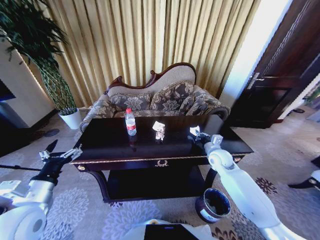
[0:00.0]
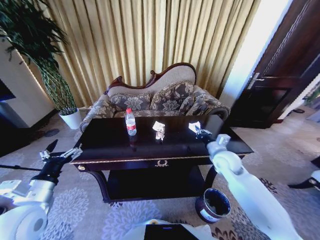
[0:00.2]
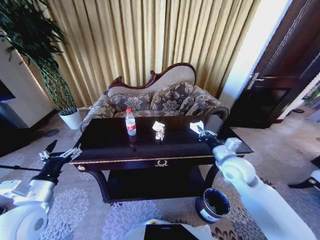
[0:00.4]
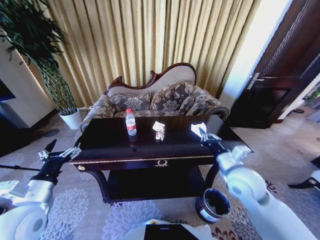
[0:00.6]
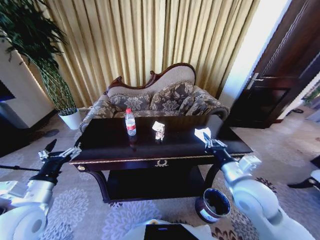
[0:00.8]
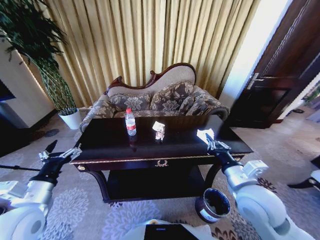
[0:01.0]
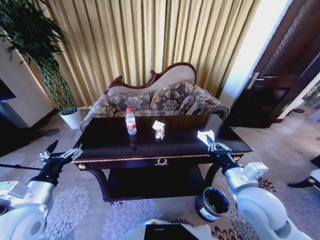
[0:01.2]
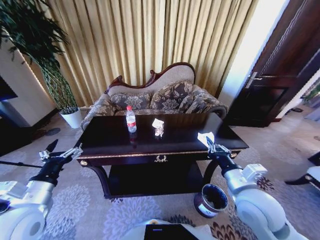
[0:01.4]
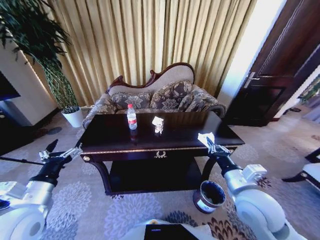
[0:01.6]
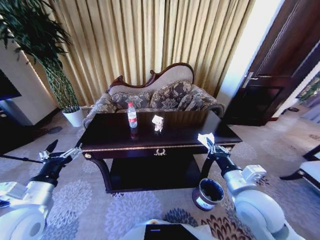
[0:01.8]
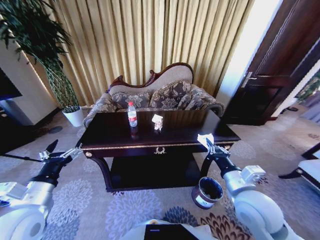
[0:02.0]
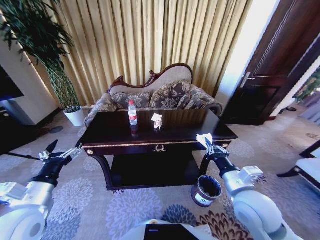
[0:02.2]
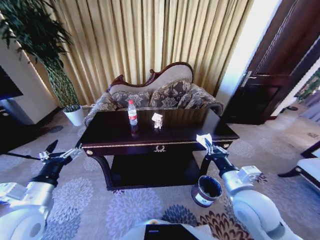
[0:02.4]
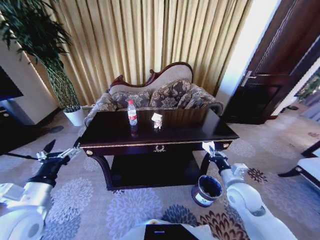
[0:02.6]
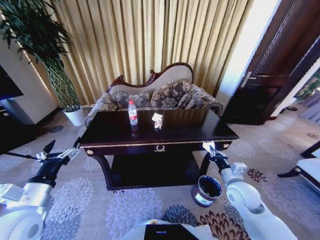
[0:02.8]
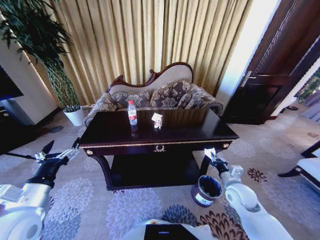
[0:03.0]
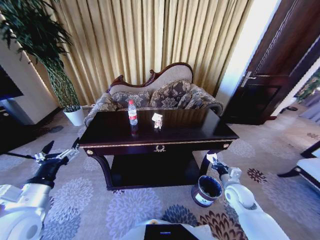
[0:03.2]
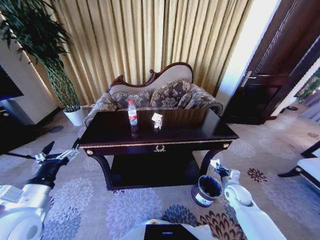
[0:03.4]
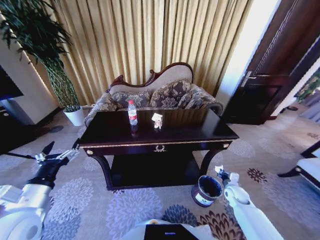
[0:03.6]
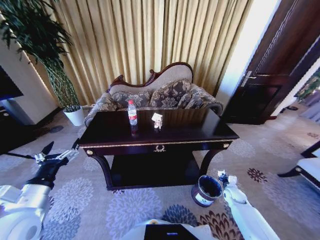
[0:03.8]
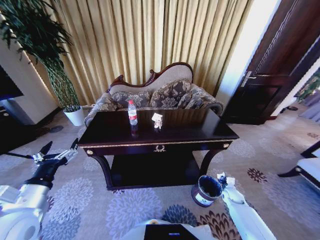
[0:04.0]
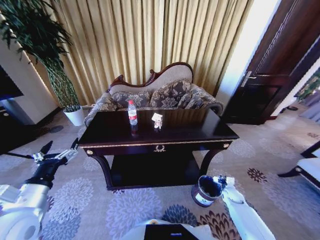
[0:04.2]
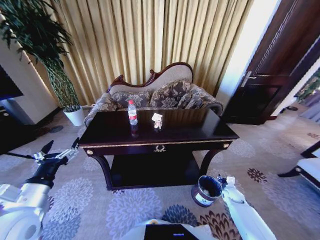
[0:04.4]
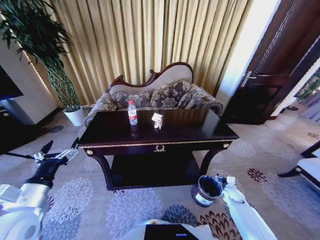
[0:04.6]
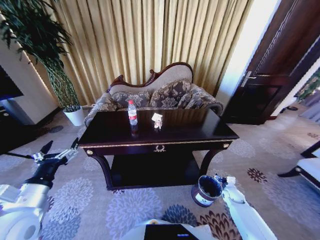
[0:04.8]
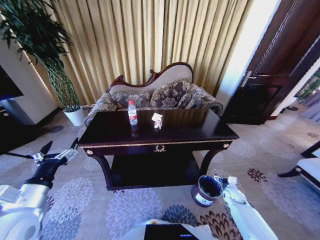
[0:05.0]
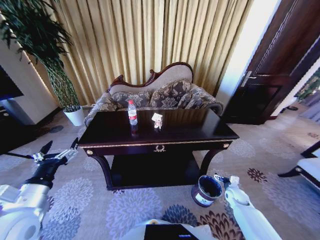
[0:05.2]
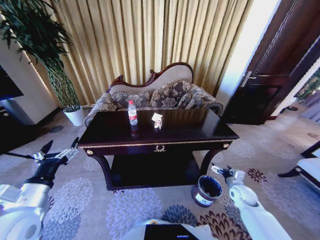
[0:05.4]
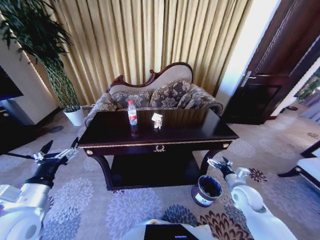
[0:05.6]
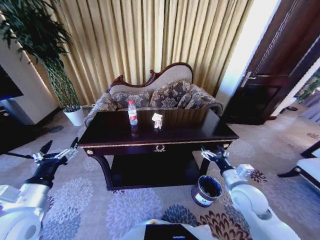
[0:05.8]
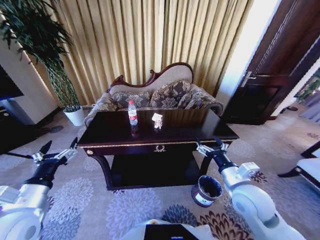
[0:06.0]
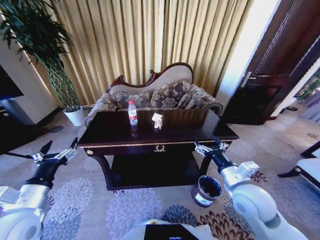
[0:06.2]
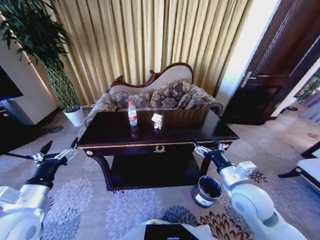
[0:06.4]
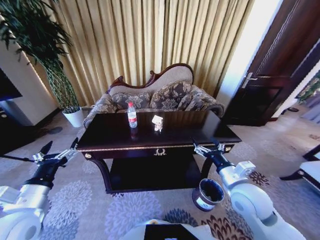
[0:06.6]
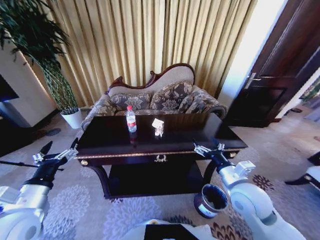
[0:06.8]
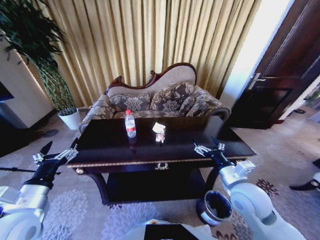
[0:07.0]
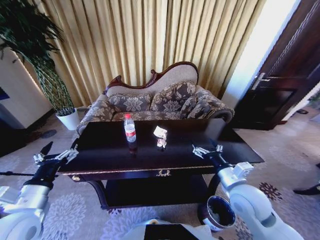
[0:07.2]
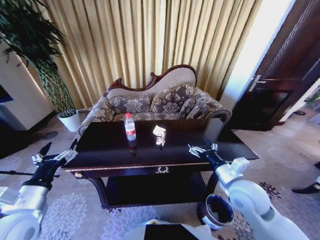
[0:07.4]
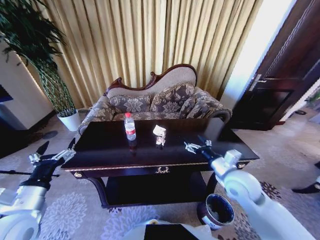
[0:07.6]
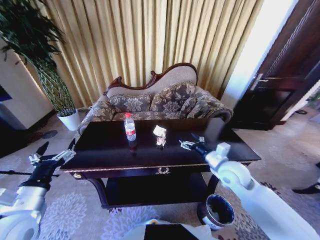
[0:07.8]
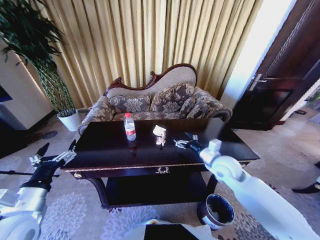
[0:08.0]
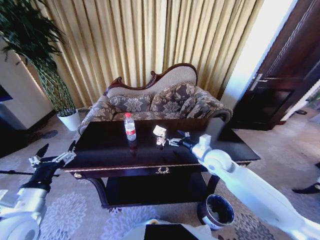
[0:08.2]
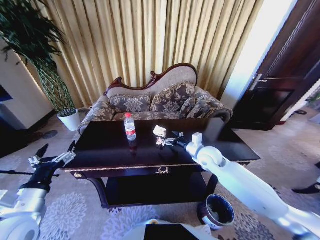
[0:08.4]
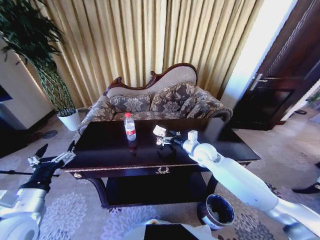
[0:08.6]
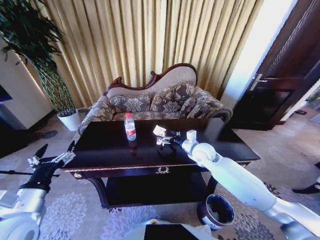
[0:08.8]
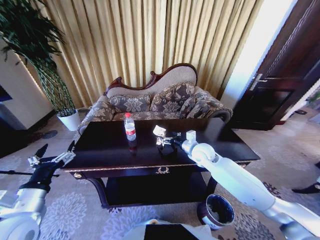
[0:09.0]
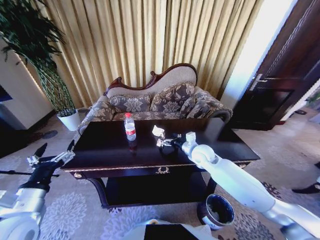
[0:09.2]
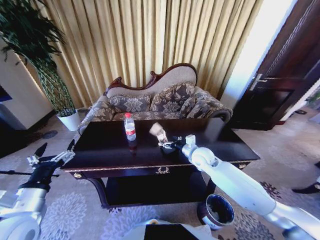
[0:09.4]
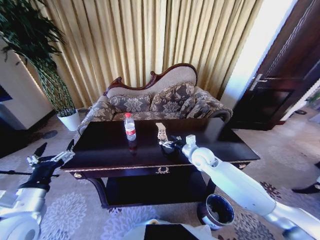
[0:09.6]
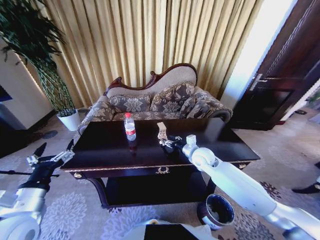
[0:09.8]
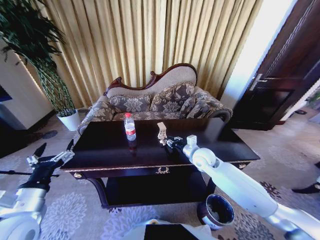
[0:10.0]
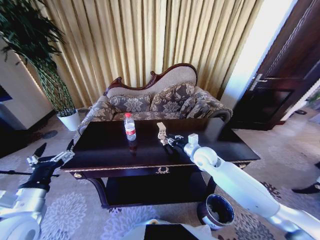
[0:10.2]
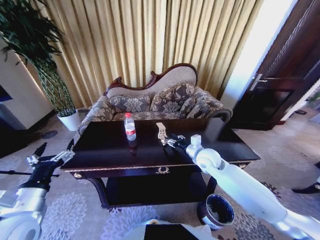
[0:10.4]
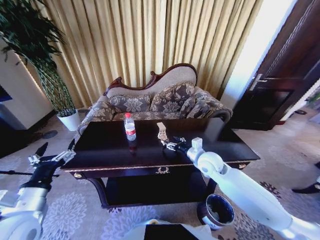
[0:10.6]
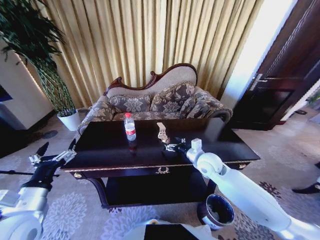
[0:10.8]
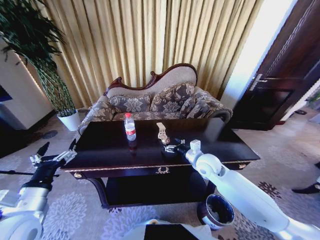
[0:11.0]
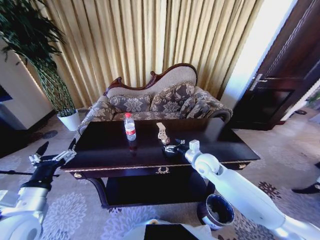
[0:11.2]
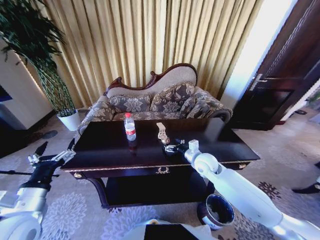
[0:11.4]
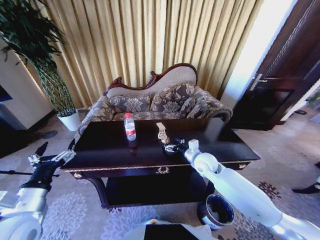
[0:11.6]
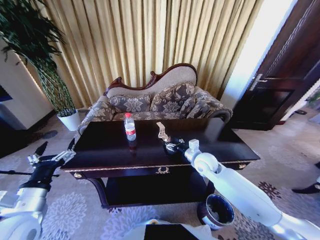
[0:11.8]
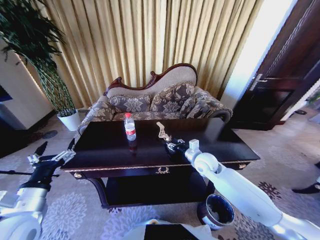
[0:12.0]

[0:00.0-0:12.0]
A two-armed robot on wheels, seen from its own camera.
Task of the whole recording: Move to the front of the table and place the trash on the table into the trash bin.
0:00.0 to 0:01.6: The right gripper is displaced backward and upward by roughly 25 cm.
0:01.6 to 0:03.0: The right gripper goes approximately 15 cm downward, to the right and forward.
0:03.0 to 0:04.4: The right gripper travels downward and to the right by roughly 20 cm, and opens.
0:04.4 to 0:06.0: The right gripper moves upward and to the left, approximately 35 cm, and opens its fingers.
0:07.6 to 0:09.0: The right gripper moves forward and to the left, about 15 cm.
0:09.0 to 0:10.4: The right gripper closes up.
0:10.4 to 0:12.0: The right gripper opens, then closes once more.

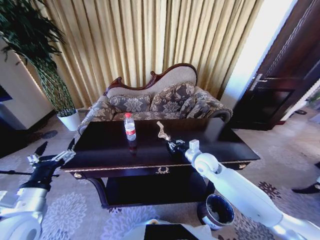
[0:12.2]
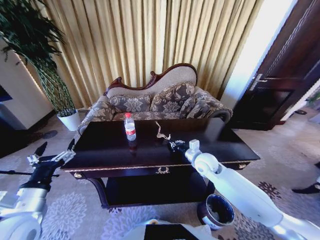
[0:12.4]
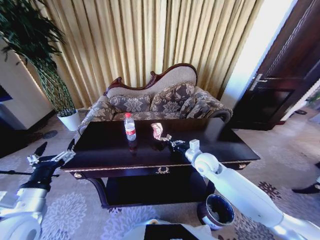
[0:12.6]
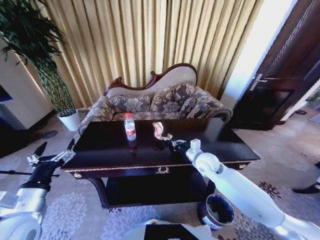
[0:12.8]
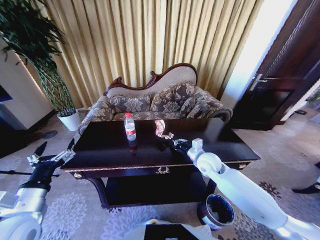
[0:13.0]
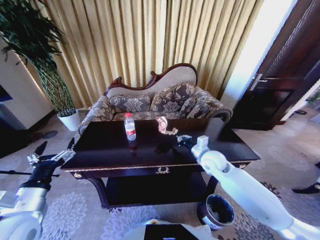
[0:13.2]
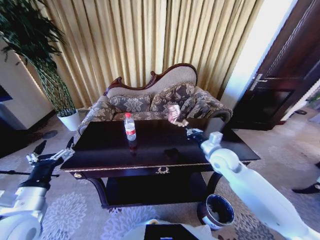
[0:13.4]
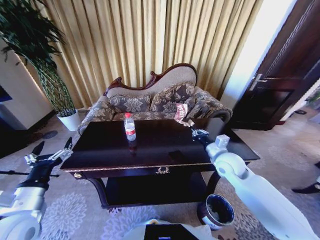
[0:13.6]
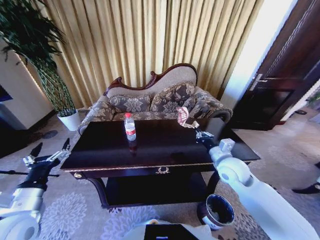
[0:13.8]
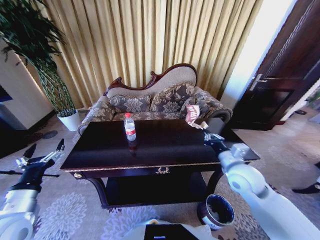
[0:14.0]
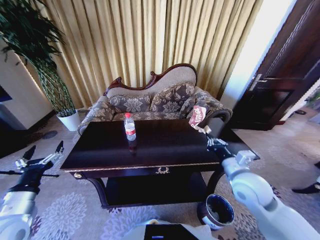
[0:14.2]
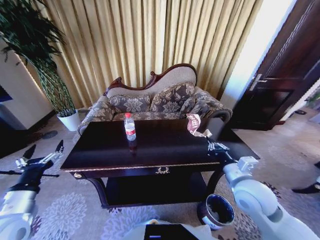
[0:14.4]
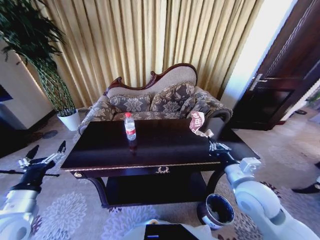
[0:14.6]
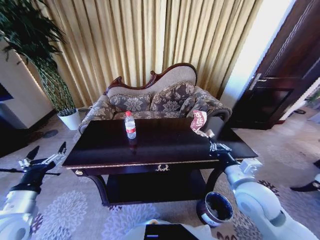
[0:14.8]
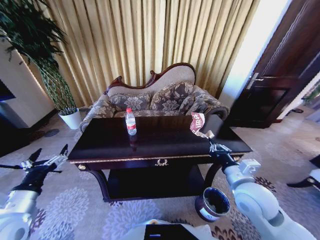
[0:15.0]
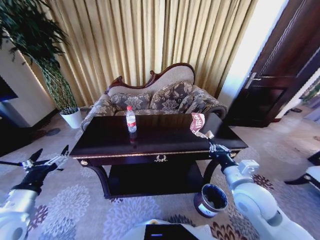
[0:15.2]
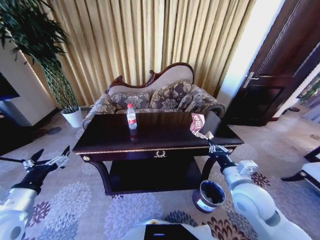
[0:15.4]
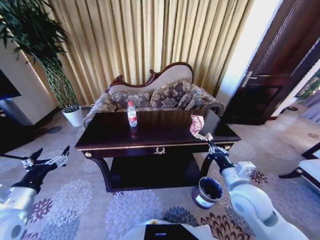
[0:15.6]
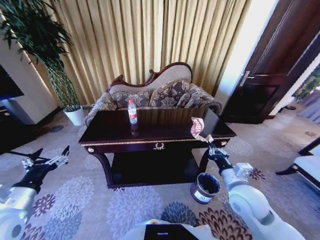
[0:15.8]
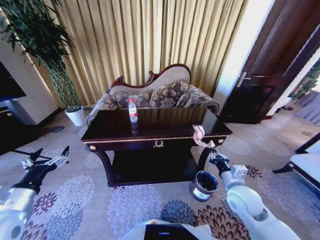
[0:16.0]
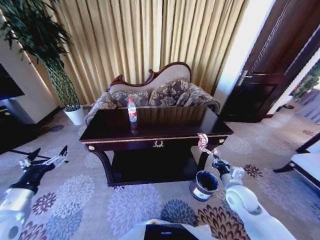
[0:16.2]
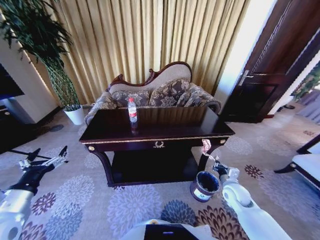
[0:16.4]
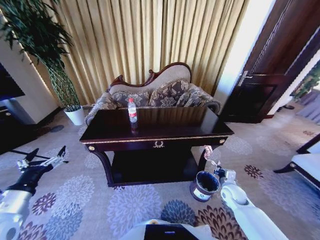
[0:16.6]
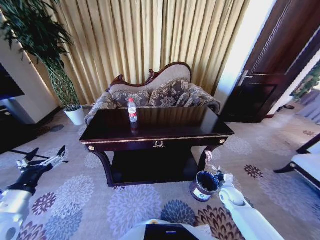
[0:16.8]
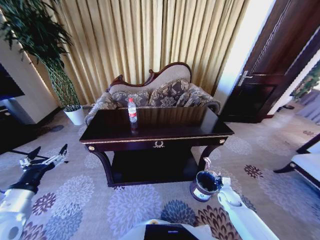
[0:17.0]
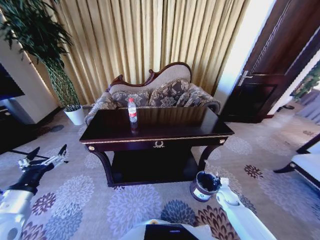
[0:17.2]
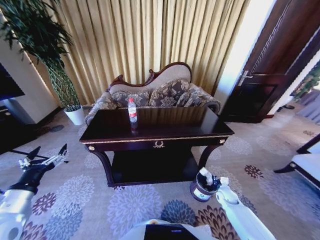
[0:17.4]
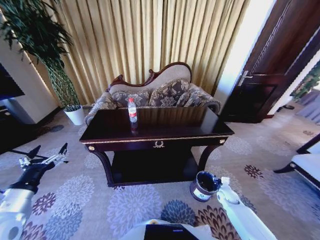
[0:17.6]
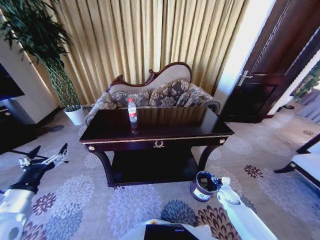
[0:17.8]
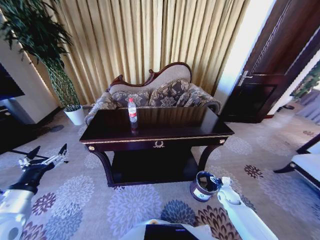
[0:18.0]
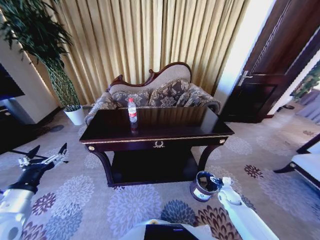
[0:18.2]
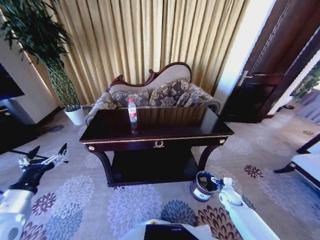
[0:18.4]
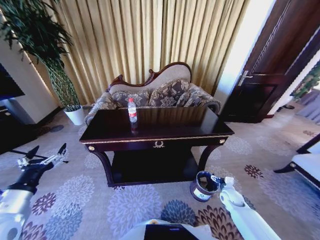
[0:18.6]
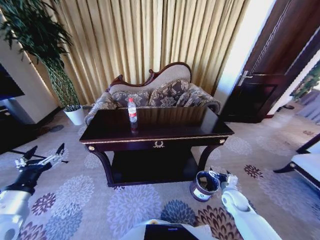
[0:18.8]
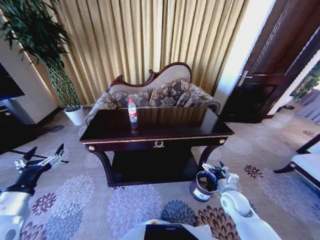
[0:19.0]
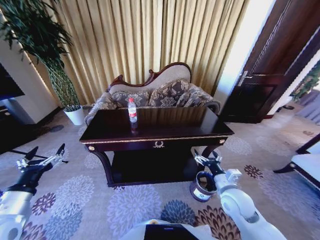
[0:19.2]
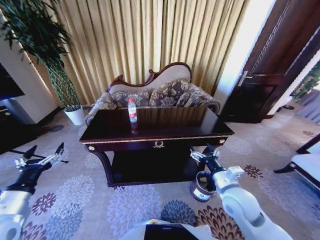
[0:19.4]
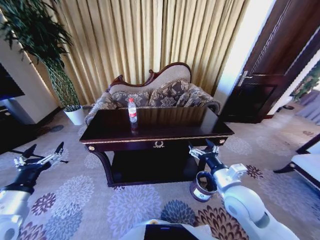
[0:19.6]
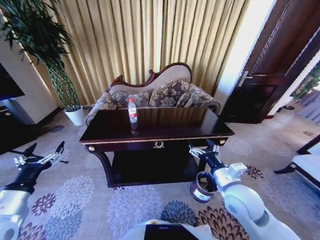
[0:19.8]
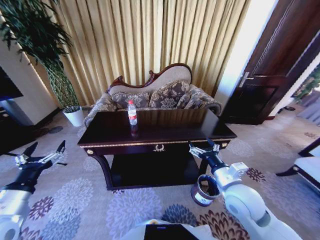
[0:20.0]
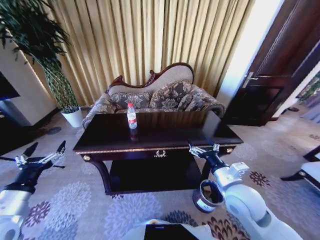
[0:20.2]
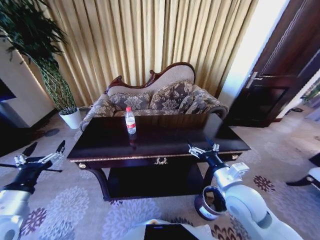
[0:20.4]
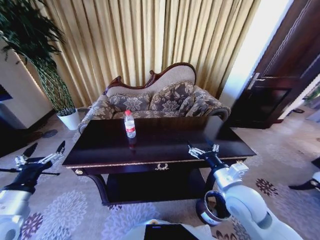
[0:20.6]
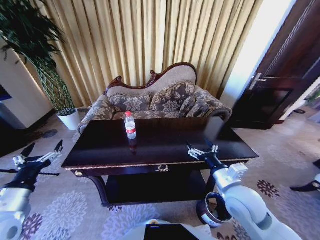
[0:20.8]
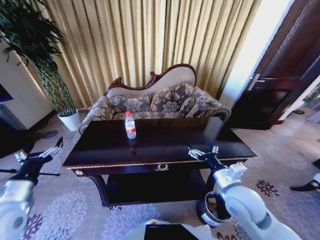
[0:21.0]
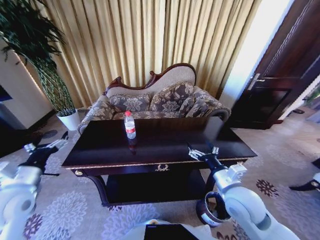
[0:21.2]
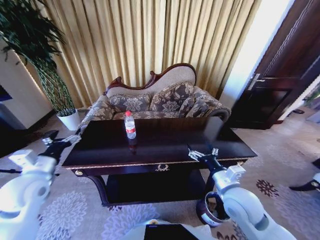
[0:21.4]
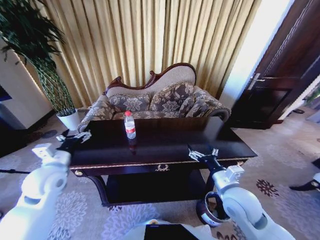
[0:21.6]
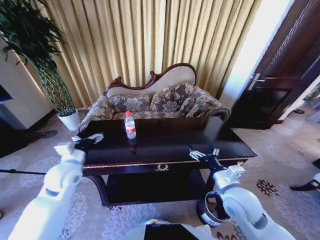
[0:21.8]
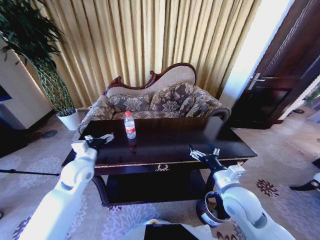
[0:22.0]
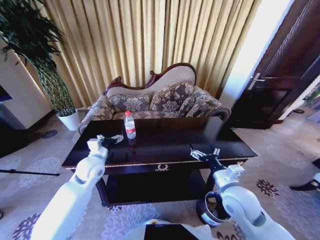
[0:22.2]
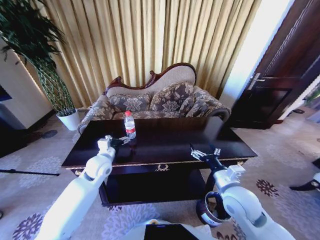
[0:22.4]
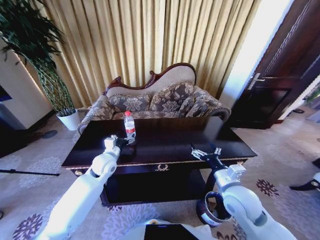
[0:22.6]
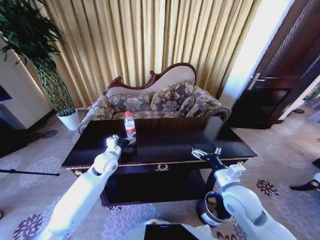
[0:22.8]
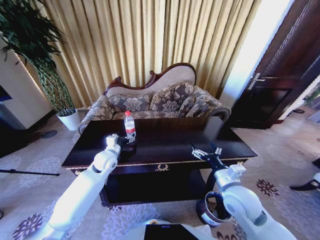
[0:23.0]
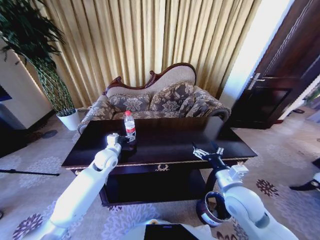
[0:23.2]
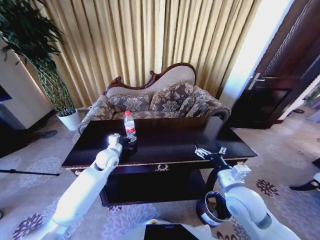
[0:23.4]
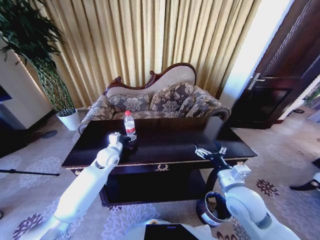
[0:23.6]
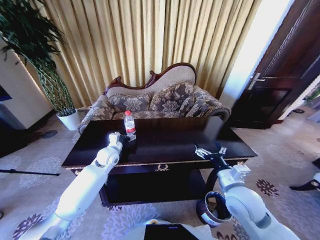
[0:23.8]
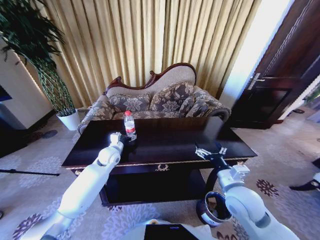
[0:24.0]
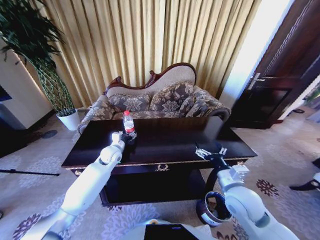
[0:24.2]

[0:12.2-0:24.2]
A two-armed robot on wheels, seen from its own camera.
Task of the whole recording: Move to the front of the table and place the trash on the table into the trash bin.
0:12.2 to 0:13.8: The right gripper is displaced backward, to the right and upward by some 10 cm.
0:13.8 to 0:15.2: The right gripper moves backward, some 10 cm.
0:15.2 to 0:16.6: The right gripper moves downward and to the right, approximately 25 cm.
0:16.6 to 0:18.2: The right gripper shifts approximately 10 cm downward, and opens.
0:18.2 to 0:19.8: The right gripper shifts approximately 30 cm upward and to the left.
0:19.8 to 0:21.2: The left gripper shifts about 5 cm forward.
0:21.2 to 0:22.6: The left gripper is displaced to the right, forward and downward by approximately 25 cm.
0:22.6 to 0:24.2: The left gripper is displaced forward by about 5 cm.
